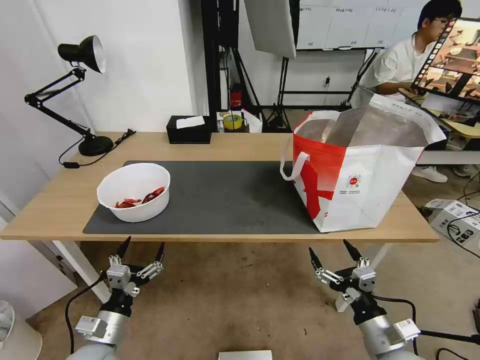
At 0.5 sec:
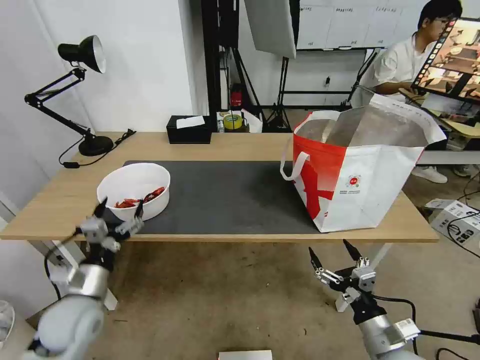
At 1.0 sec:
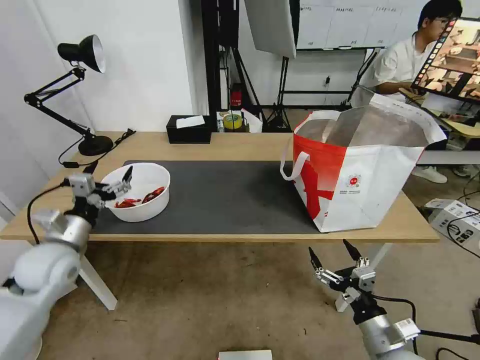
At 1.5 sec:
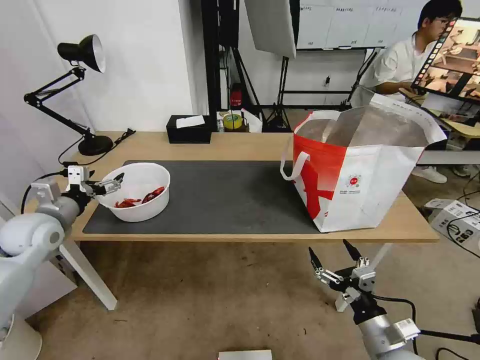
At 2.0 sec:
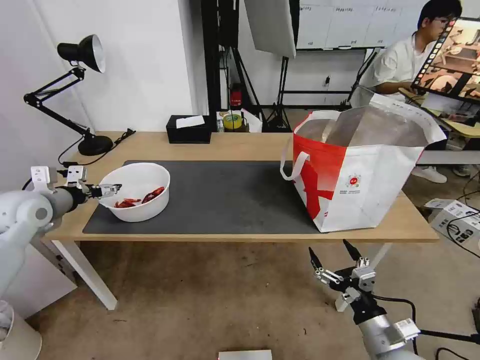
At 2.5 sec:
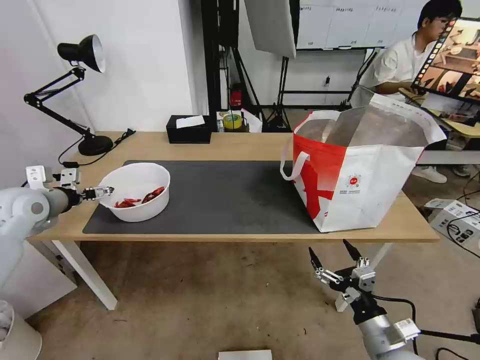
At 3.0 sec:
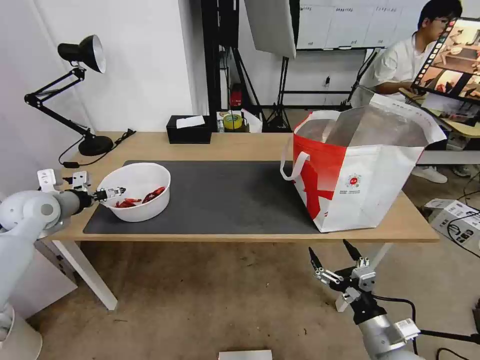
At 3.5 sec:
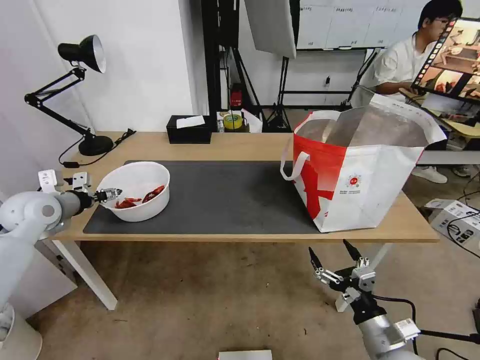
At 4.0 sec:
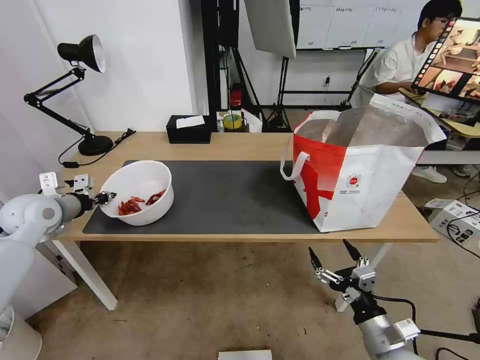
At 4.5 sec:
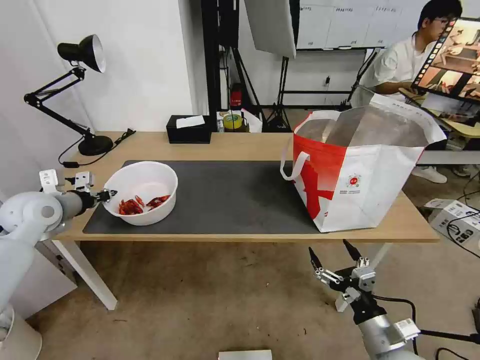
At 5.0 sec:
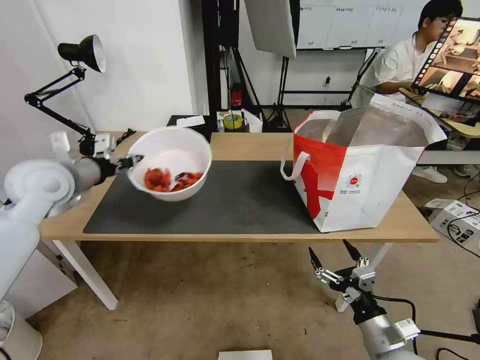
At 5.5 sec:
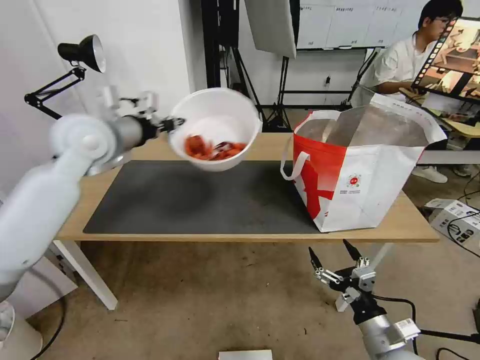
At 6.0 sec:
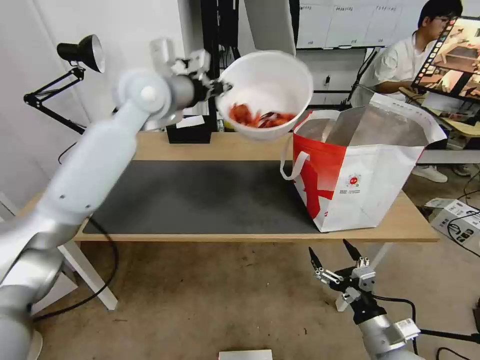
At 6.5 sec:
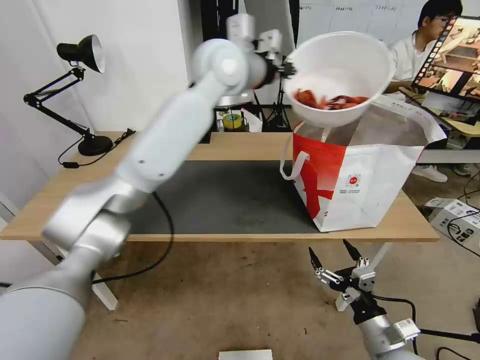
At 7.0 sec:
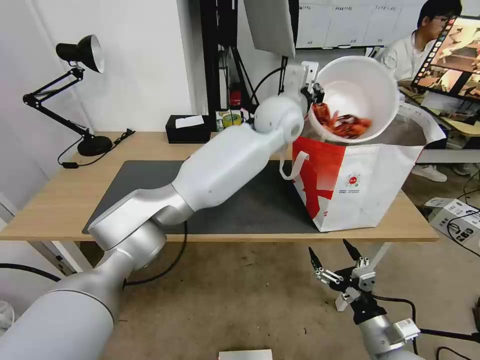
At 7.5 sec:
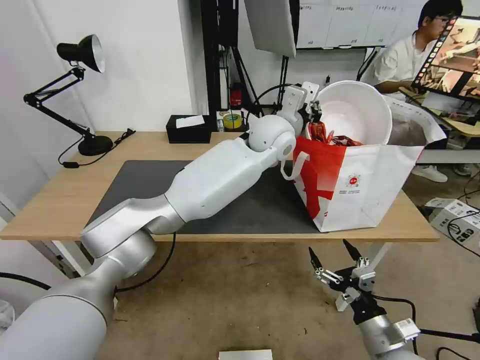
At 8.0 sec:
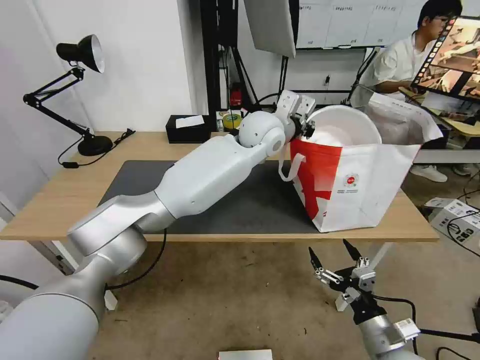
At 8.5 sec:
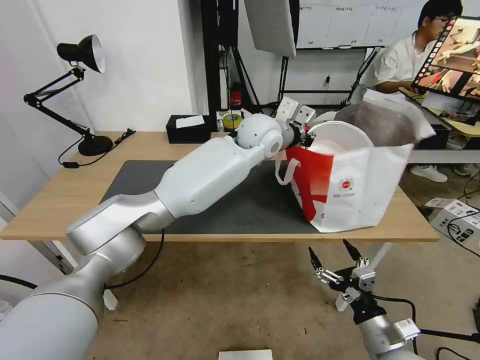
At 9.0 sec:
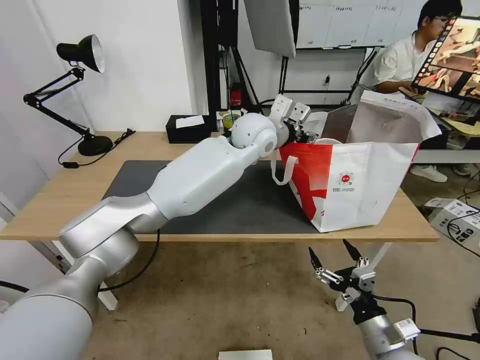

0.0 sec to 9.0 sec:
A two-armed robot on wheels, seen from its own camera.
Task of the whole recording: Pick up the trash from the table and place it into the takeout bag.
0.0 sec to 2.0 sec: The left gripper heads forward, upward and to the left, covering roughly 35 cm.
2.0 sec to 4.5 sec: The left gripper closes.
4.5 sec to 7.0 sec: The left gripper shifts roughly 50 cm to the right.
7.0 sec to 9.0 sec: The left gripper moves roughly 5 cm, and opens up.

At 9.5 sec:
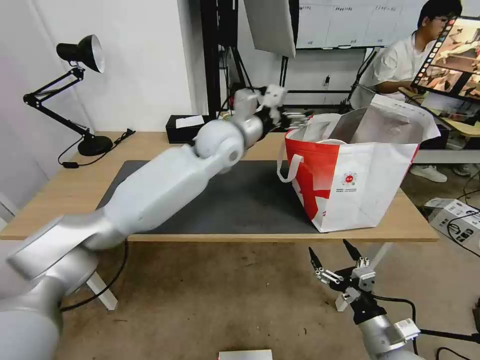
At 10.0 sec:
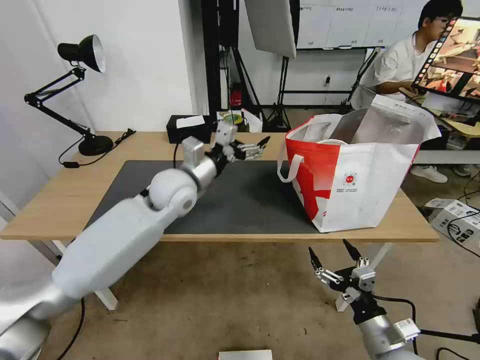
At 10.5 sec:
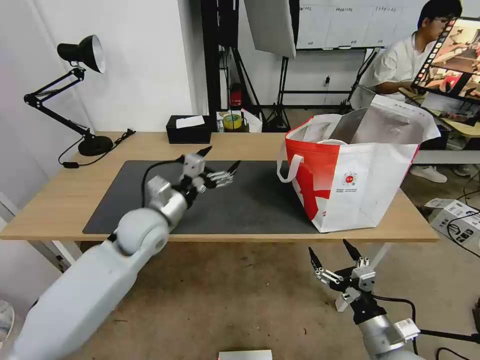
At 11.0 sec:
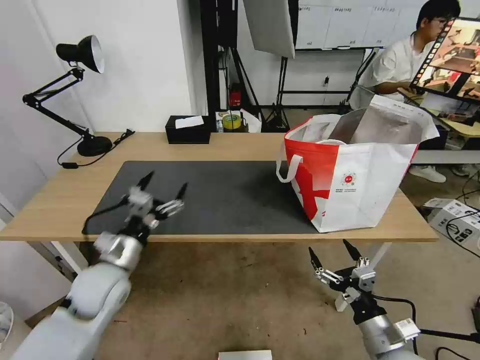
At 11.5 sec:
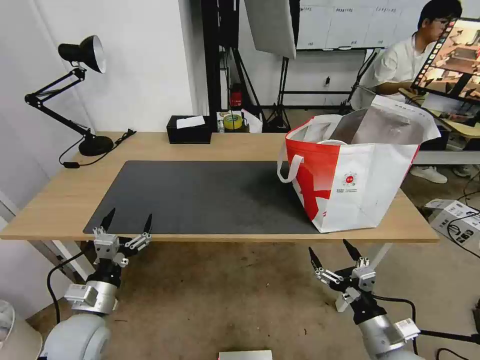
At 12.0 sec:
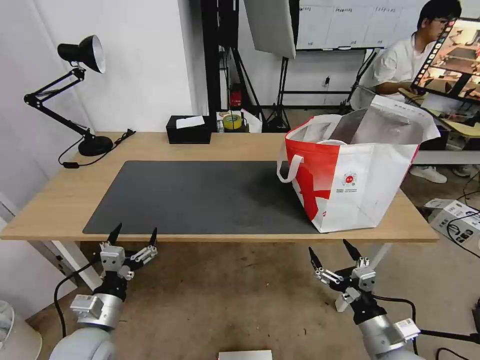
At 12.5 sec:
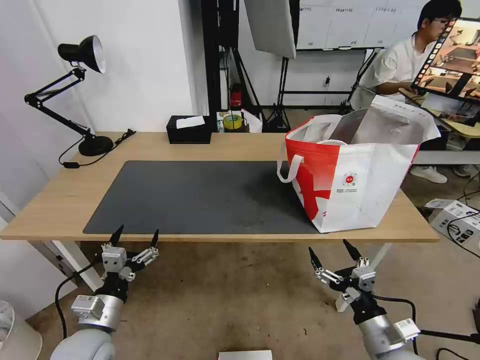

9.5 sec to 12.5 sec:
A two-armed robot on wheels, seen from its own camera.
Task of the whole recording: Pick up the trash from the table and place it into the takeout bag.
9.5 sec to 11.0 sec: The left gripper heads to the left, backward and downward, covering about 40 cm.
11.0 sec to 12.5 sec: The left gripper travels backward and downward by roughly 10 cm.
